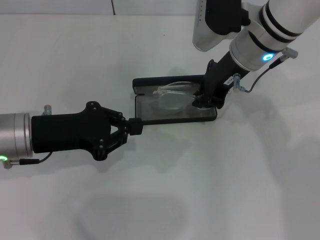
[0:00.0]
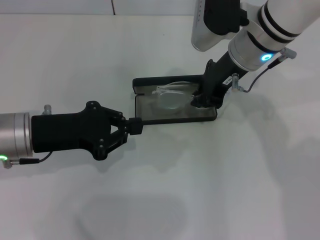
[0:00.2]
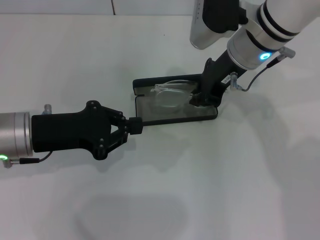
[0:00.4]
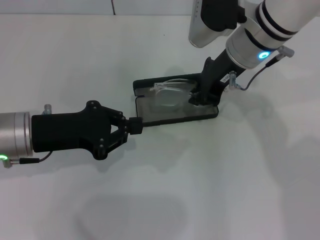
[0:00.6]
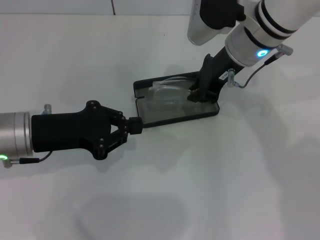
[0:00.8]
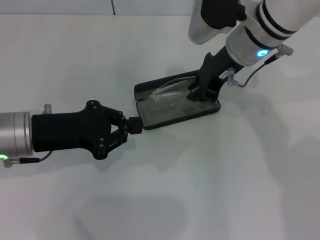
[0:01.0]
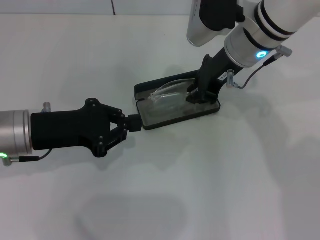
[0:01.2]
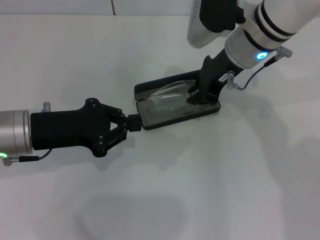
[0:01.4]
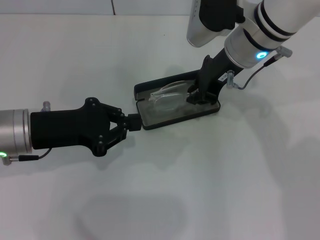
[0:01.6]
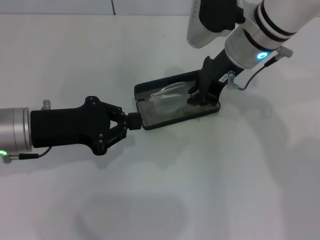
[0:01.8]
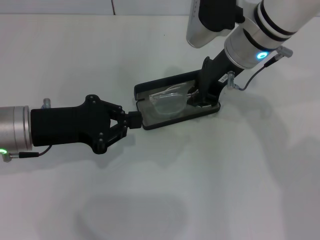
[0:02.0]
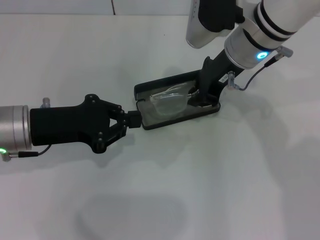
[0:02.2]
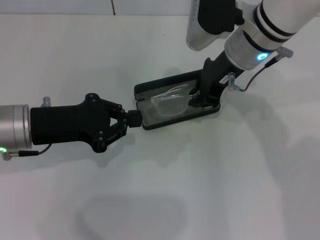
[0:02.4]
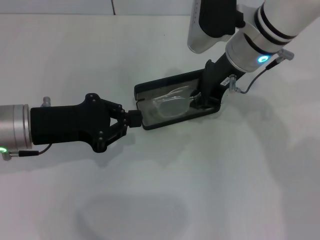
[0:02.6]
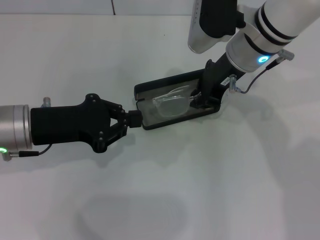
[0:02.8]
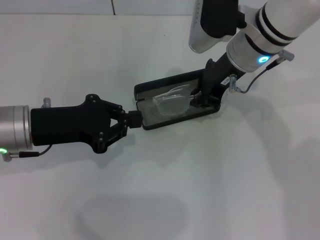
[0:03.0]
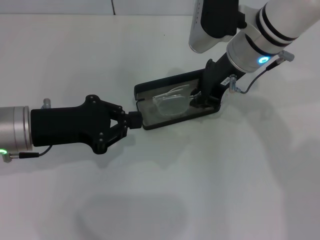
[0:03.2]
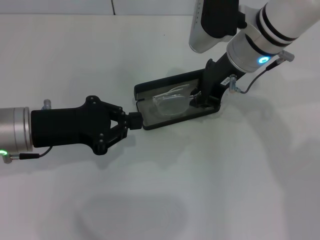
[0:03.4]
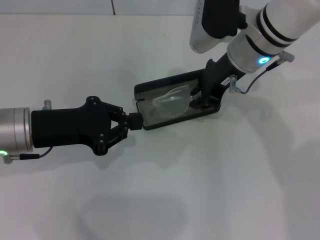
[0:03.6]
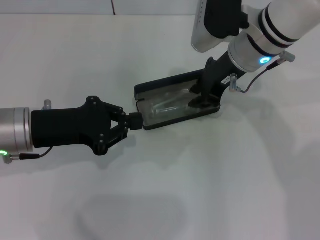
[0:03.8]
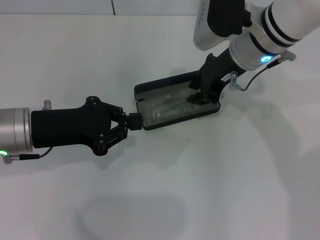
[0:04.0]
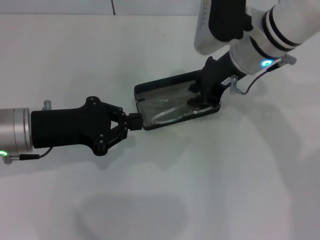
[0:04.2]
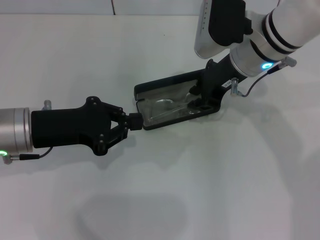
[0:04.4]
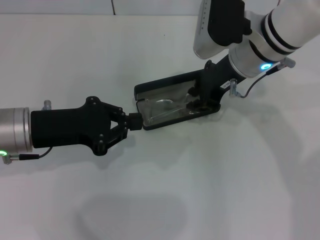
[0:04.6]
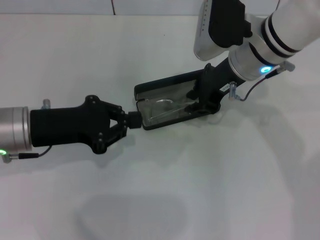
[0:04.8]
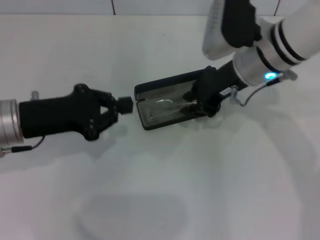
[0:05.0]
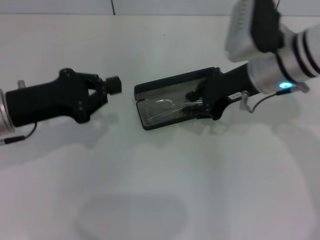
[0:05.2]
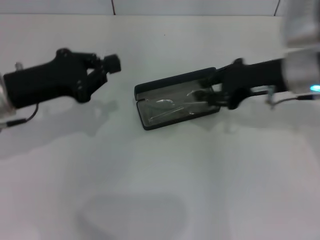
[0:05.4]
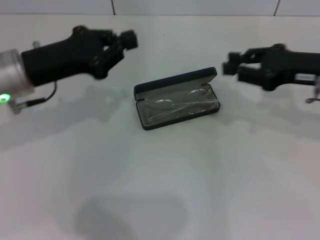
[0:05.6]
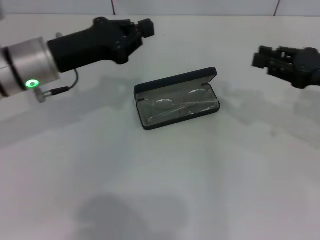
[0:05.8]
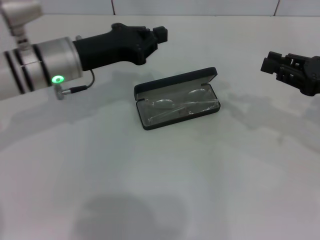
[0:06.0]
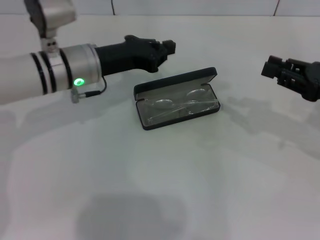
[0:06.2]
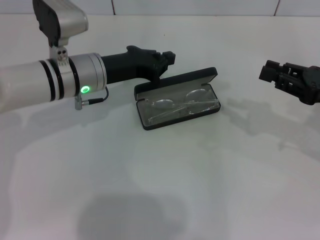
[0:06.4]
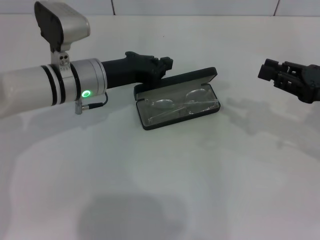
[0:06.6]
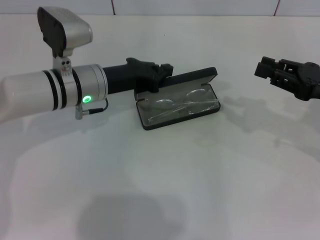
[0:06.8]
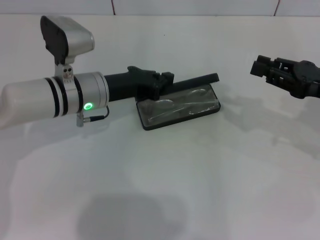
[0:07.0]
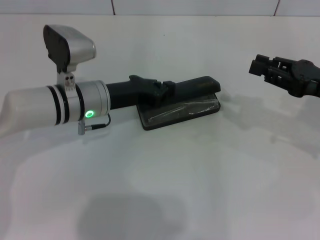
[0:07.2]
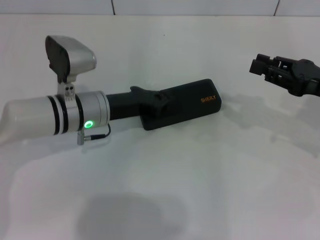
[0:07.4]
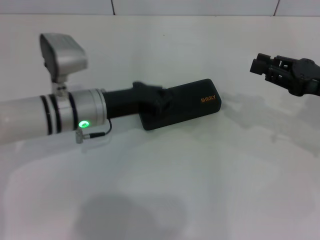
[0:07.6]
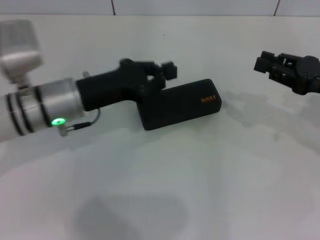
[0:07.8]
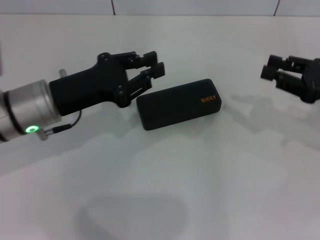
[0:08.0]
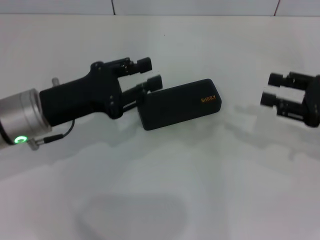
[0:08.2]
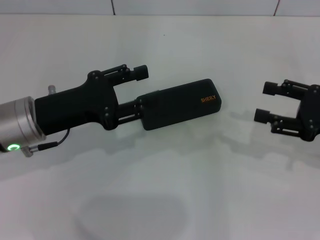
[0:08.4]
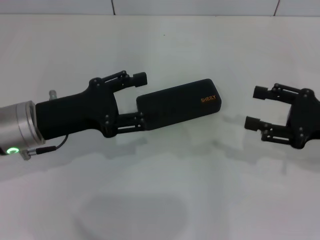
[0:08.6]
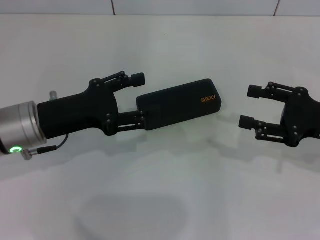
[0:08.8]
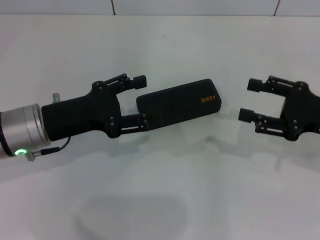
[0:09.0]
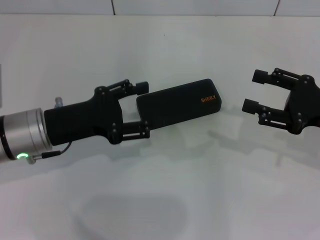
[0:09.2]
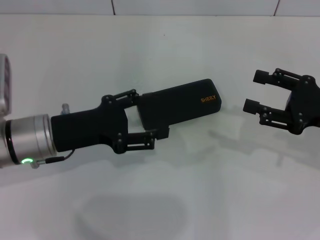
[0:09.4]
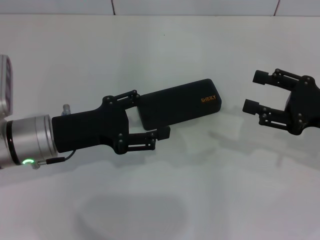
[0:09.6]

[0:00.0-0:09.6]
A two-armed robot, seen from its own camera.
Step, 0:00.0 to 0:05.2: Put the glasses into the case with your right hand.
Step, 0:05.4 to 0:07.4: Close the glasses case with your left hand.
0:00.0 to 0:03.2: Both grippers stay about where they are.
0:03.2 to 0:04.8: The two grippers keep their place.
0:04.8 to 0:06.4: The right gripper moves to the right and backward, some 20 cm; the left gripper goes about 15 cm forward and to the right.
0:06.4 to 0:08.0: The left gripper heads backward, covering some 10 cm.
0:08.0 to 0:09.6: The right gripper opens up; the left gripper opens up.
